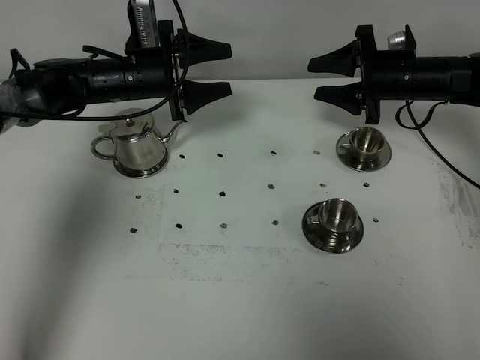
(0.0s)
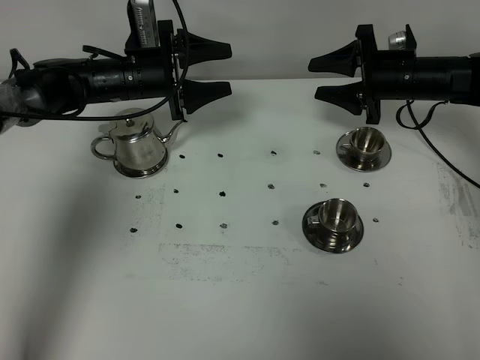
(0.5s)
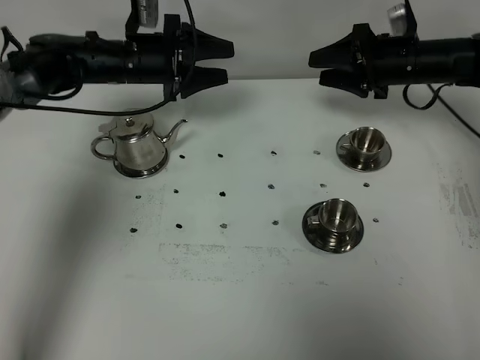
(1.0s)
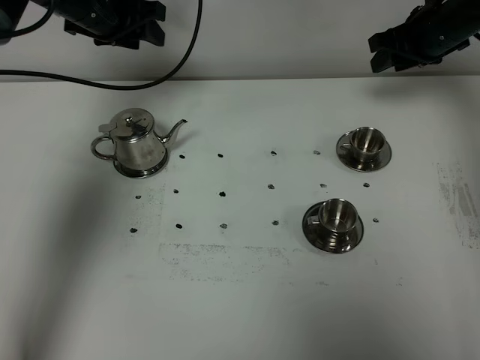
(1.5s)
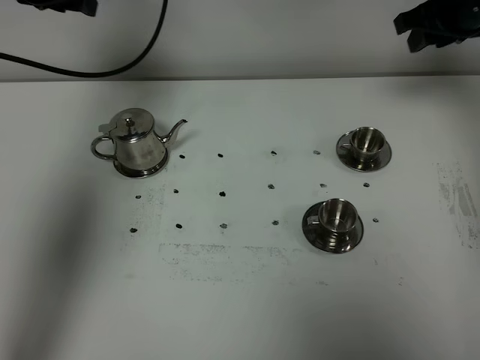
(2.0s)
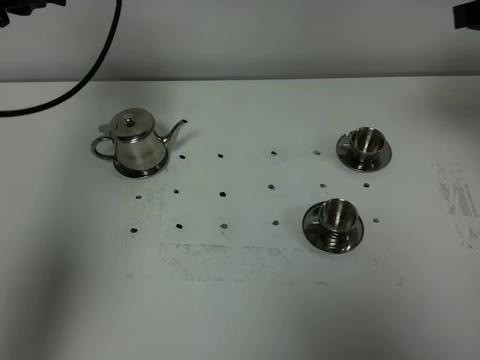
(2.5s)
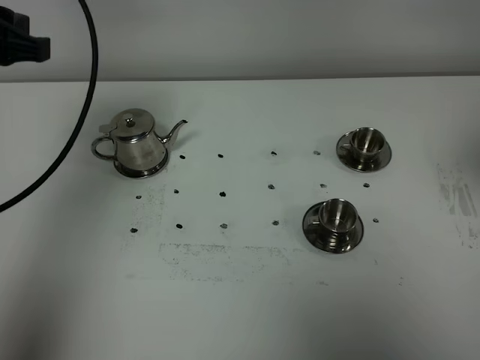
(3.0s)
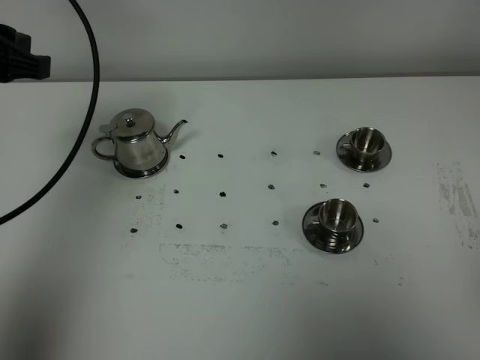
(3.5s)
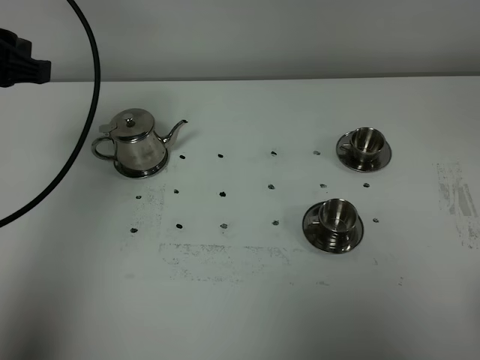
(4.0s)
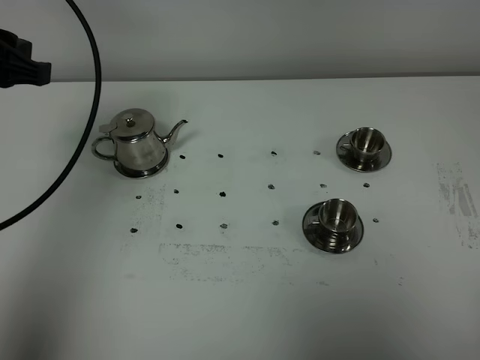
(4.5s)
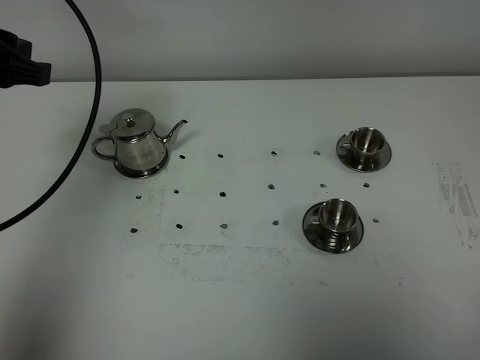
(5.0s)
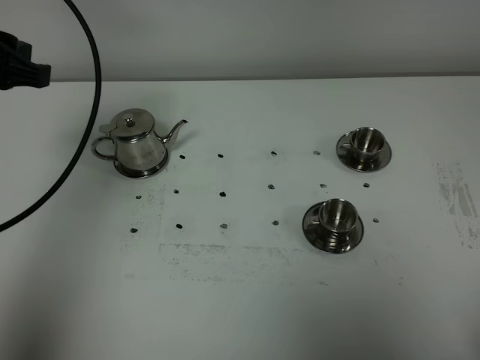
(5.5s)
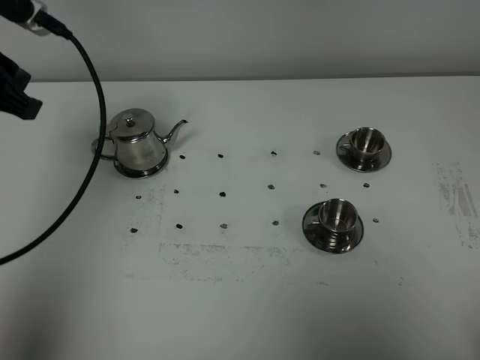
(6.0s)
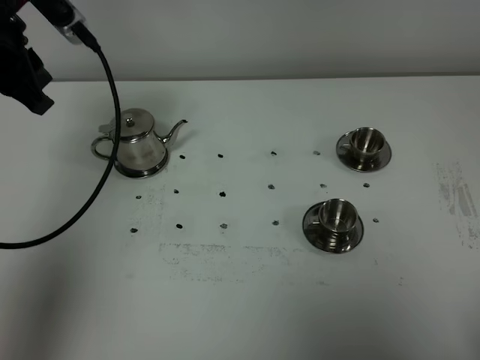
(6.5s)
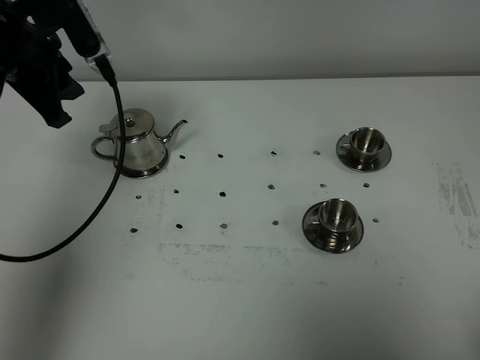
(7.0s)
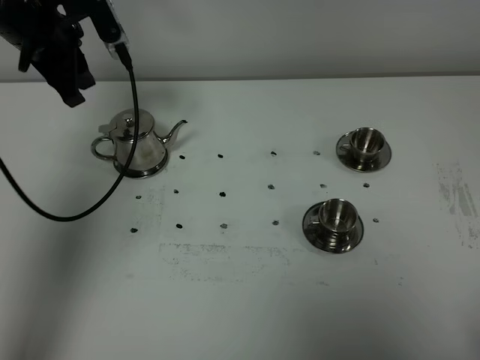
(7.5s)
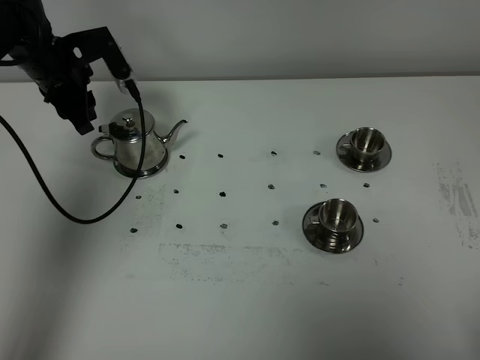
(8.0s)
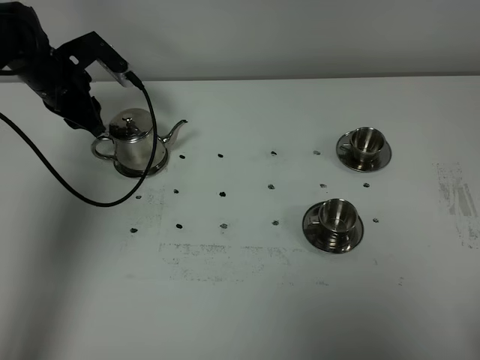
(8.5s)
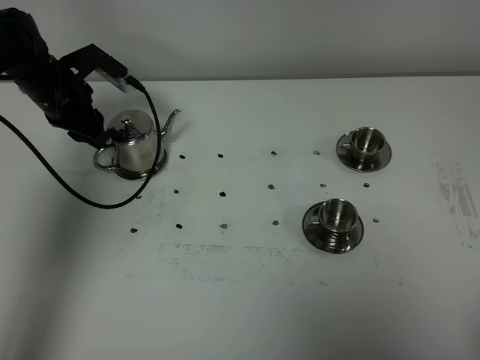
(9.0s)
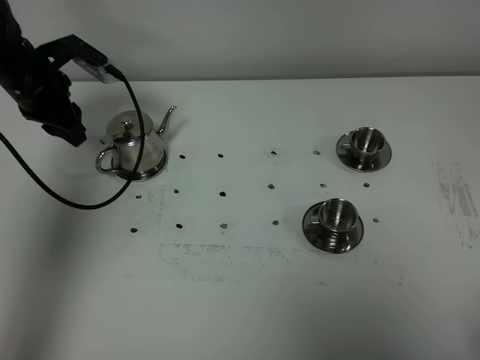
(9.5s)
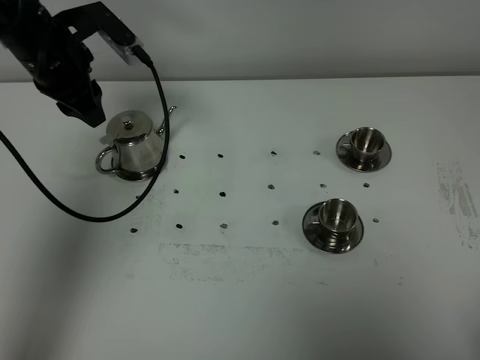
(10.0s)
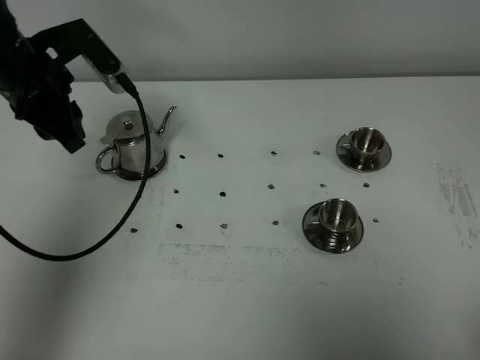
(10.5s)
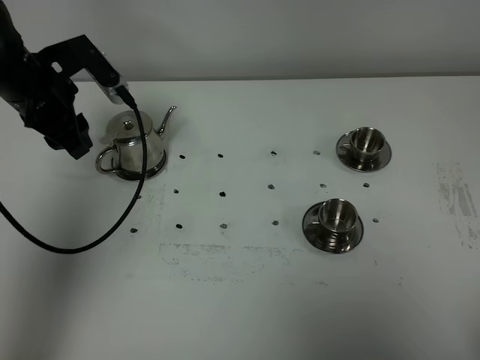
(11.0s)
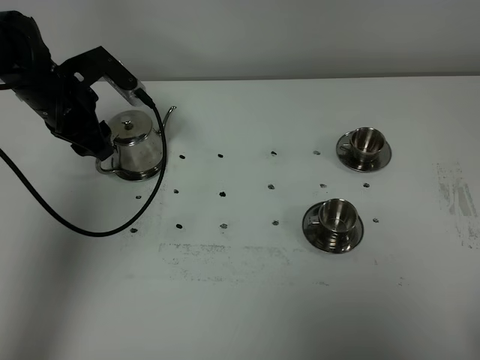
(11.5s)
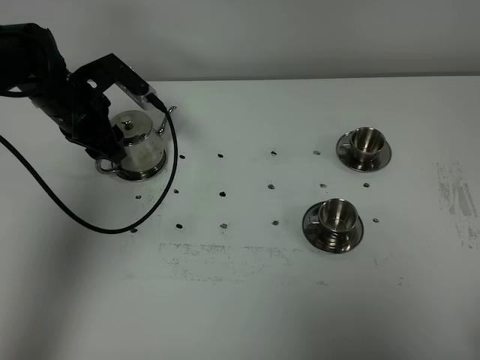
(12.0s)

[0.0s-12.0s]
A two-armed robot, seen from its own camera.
Task of the whole recording: grasp the stainless steel teapot and pour the tea into the two stainless steel teacups one by one, put the stainless steel teapot back in its original place.
0.0s to 2.0s: The left gripper travels upward and to the left by roughly 20 cm, and closes up, while the right gripper moves upward, some 15 cm, and closes its fingers.
2.0s to 4.0s: The right gripper shifts about 50 cm backward, and closes; the left gripper heads backward, covering approximately 15 cm.
6.0s to 8.0s: The left gripper heads forward and downward, covering about 25 cm.
8.0s to 10.0s: The left gripper goes roughly 10 cm upward and backward.
10.0s to 12.0s: The left gripper moves downward, some 10 cm, and opens.

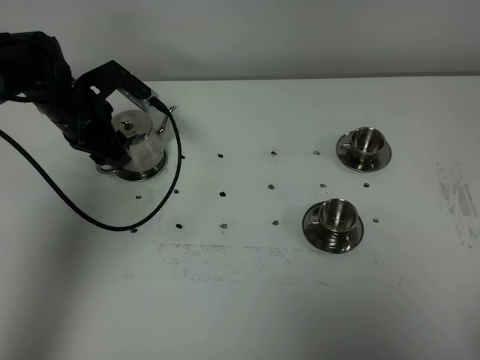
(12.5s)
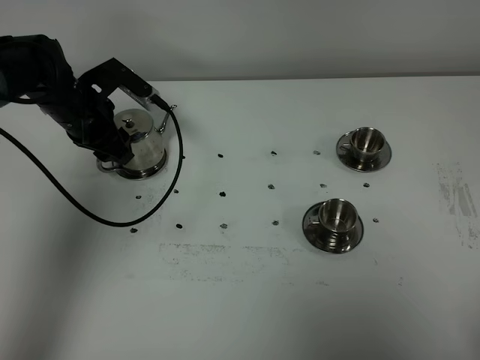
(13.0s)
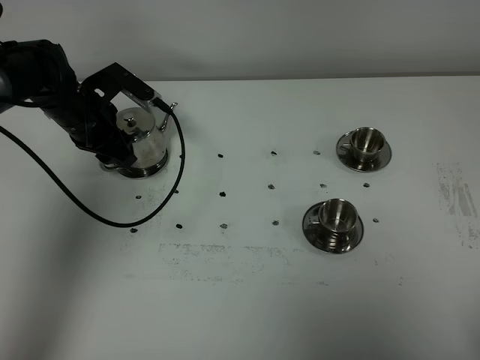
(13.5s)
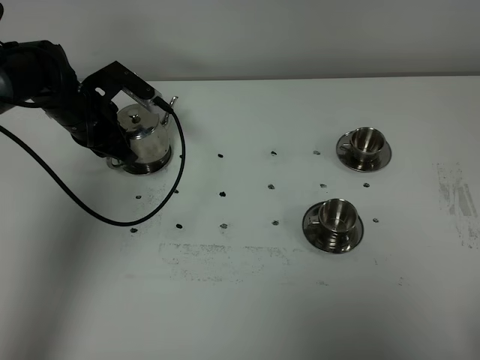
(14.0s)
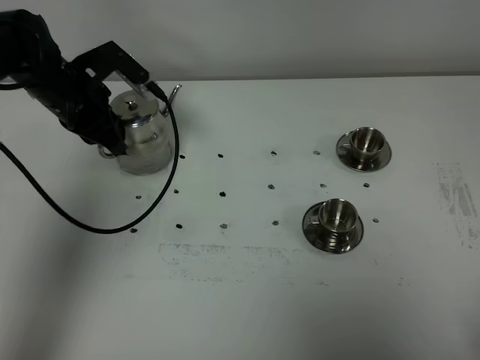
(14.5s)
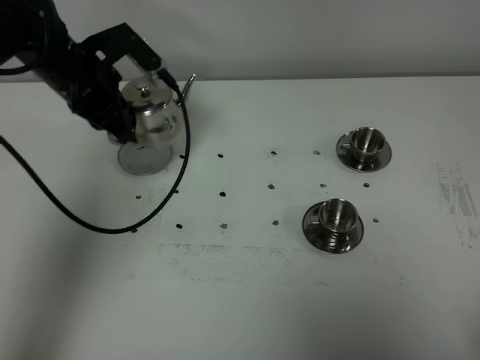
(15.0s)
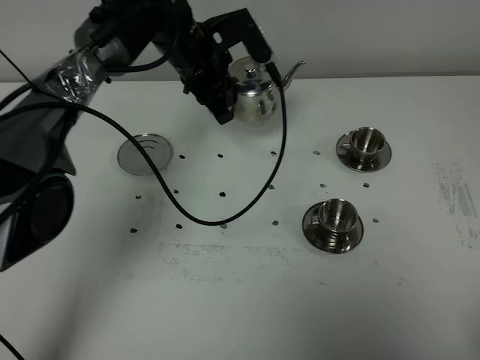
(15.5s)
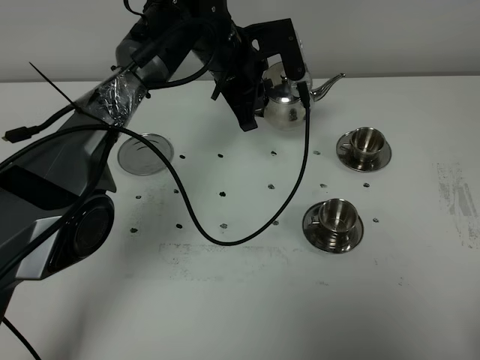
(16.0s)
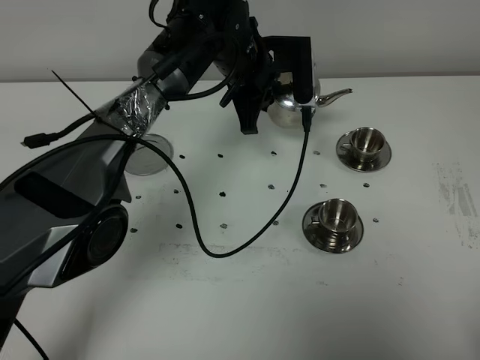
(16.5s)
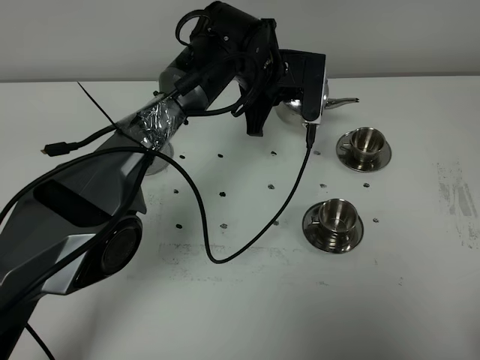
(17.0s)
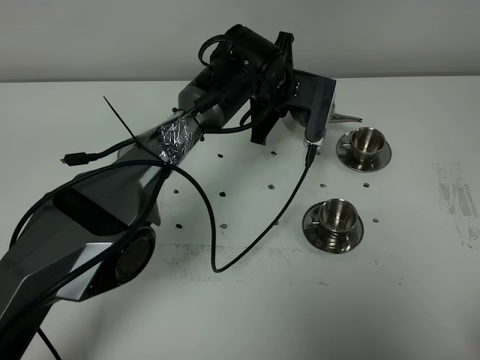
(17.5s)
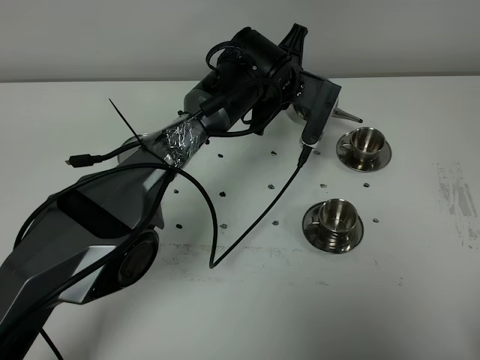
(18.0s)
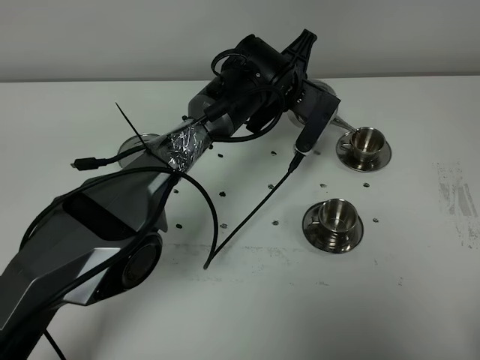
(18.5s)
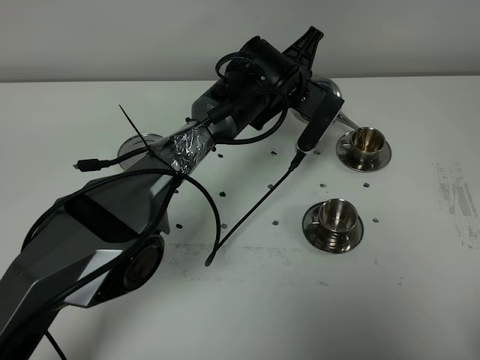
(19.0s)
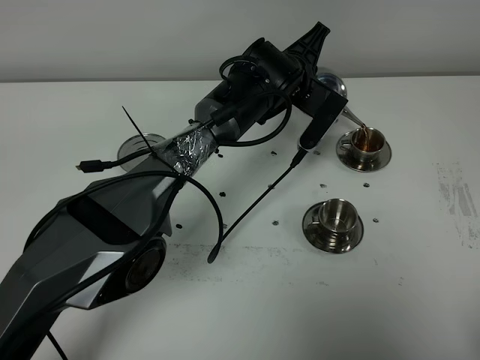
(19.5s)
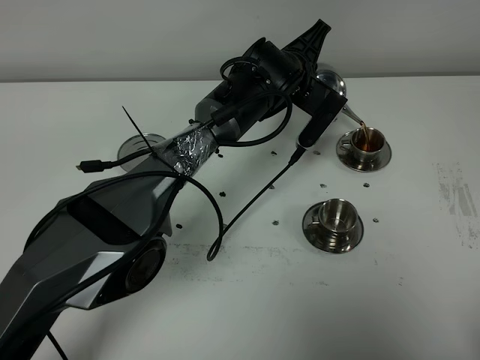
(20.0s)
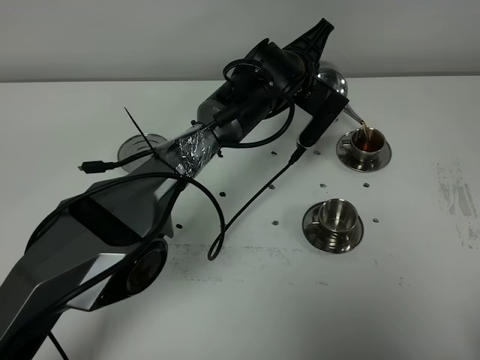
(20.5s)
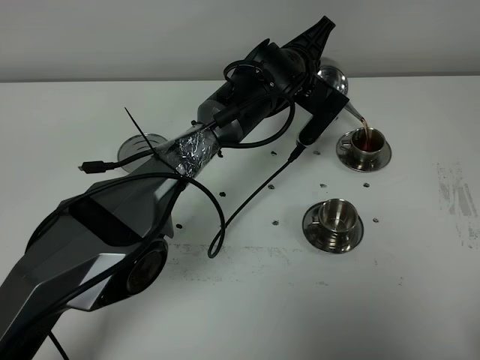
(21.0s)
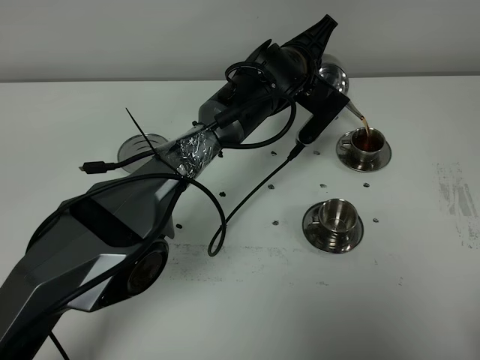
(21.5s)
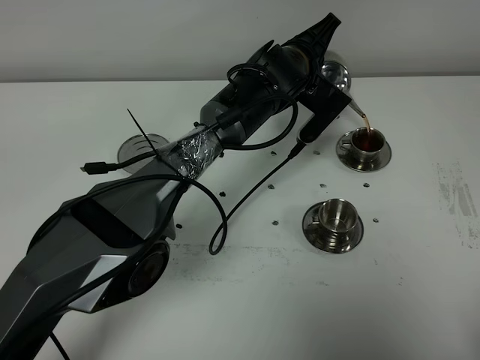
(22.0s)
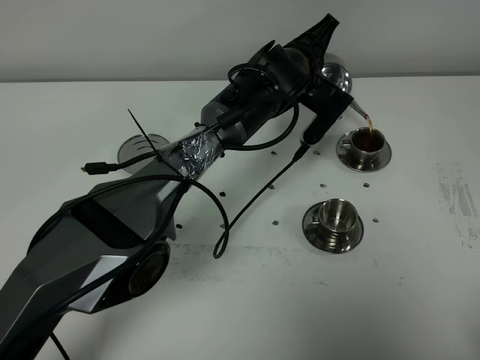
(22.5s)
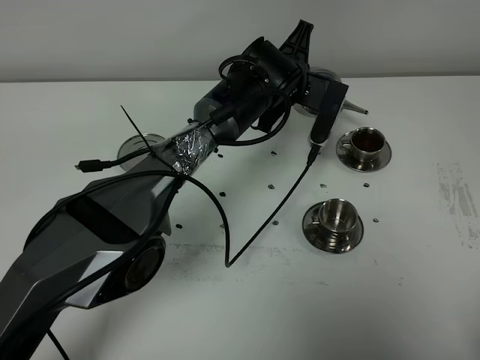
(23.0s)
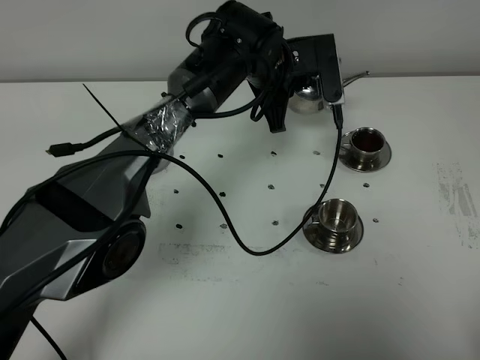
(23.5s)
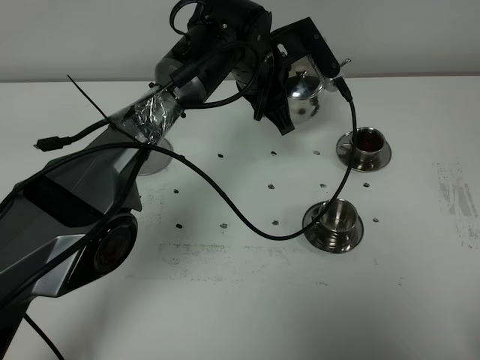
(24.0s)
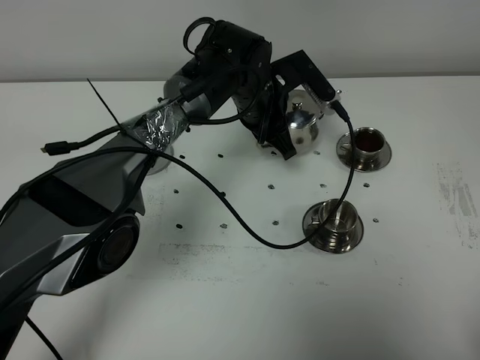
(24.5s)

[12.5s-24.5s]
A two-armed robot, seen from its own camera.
Task of the whole recording: grasp the stainless steel teapot and pour the tea into the two stainless steel teacups one by one, put the stainless steel teapot back in its original place.
Step, 12.5s to 14.5s: Pick up the teapot with the left gripper.
Step, 15.0s to 22.5s: Pour tea into the teacup with the left gripper.
12.5s to 14.5s: The left gripper closes up.
14.5s to 16.5s: The left gripper shifts some 20 cm to the right.
16.5s to 18.5s: The left gripper moves approximately 5 cm.
18.5s to 22.5s: There are only small adjustments of the grippers.
22.5s to 24.5s: The left gripper moves approximately 5 cm.

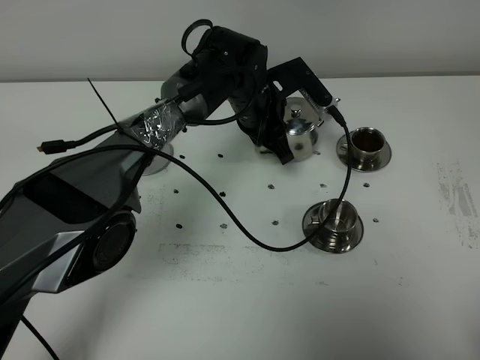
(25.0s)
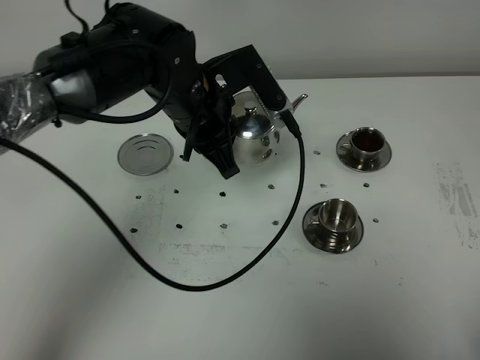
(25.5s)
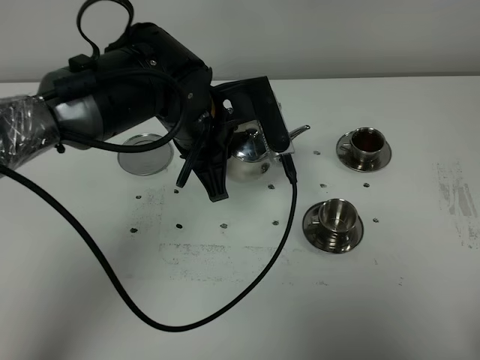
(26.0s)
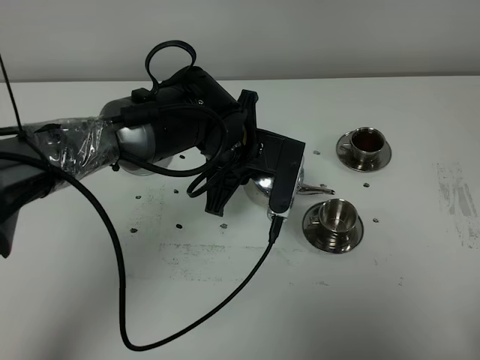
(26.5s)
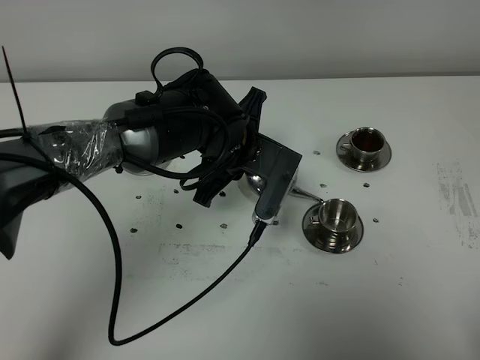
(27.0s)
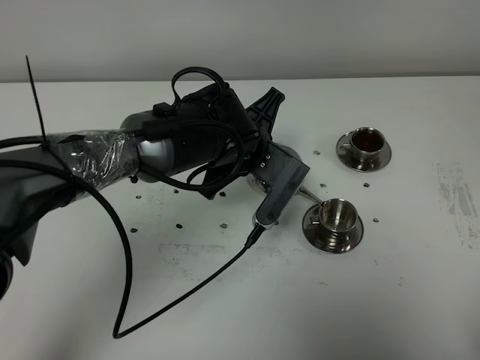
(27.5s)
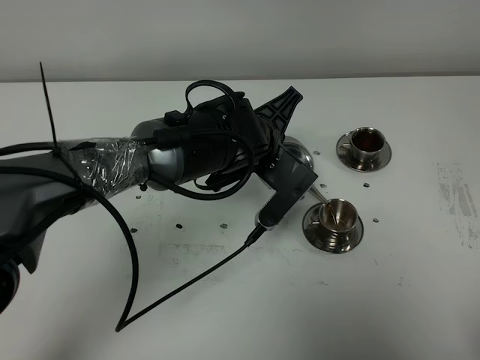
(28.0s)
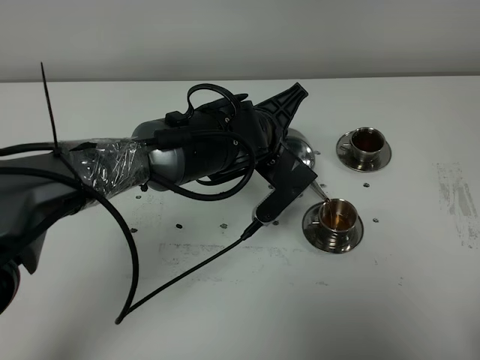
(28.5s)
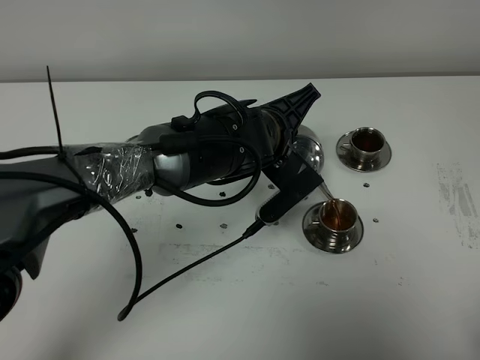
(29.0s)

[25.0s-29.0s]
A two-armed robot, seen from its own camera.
Task of the whole recording: grasp the stainless steel teapot and pour the tea into the two stainless steel teacups one by one, put the stainless steel teapot back in its original place.
25.0s to 27.0s: The left gripper heads backward, covering approximately 10 cm.
